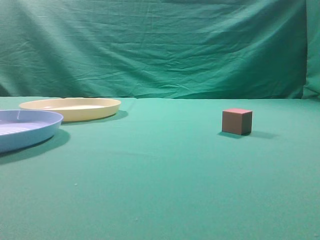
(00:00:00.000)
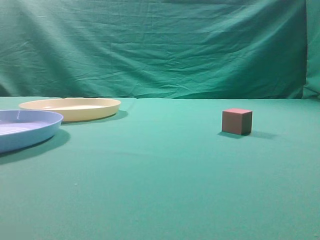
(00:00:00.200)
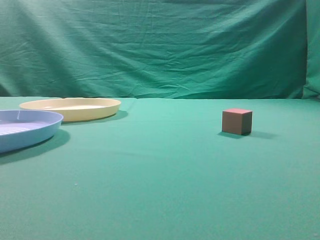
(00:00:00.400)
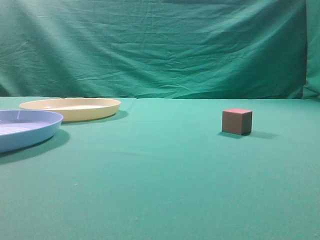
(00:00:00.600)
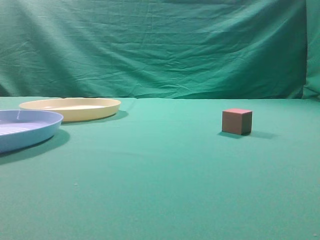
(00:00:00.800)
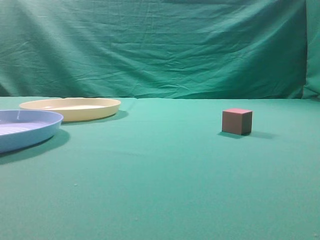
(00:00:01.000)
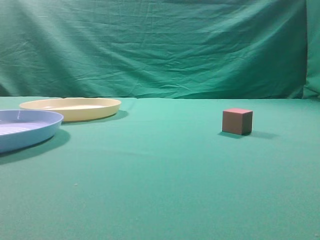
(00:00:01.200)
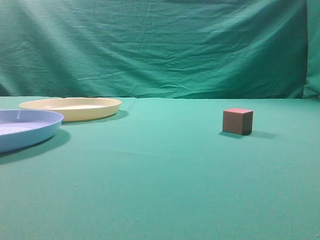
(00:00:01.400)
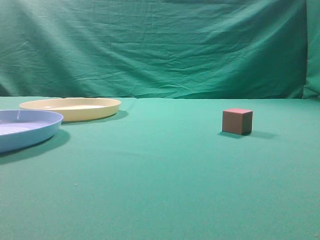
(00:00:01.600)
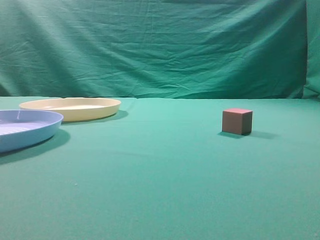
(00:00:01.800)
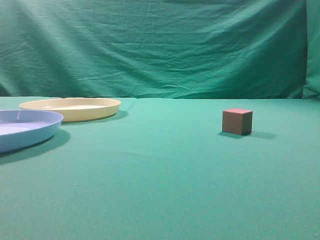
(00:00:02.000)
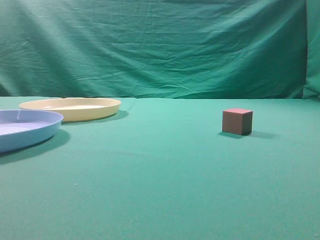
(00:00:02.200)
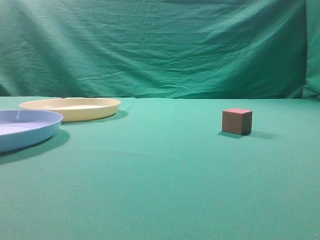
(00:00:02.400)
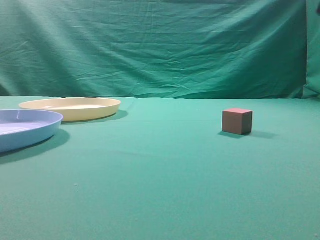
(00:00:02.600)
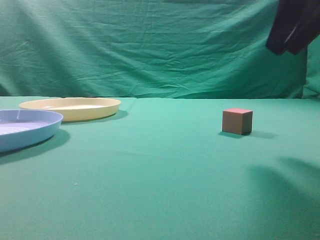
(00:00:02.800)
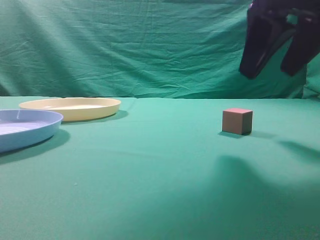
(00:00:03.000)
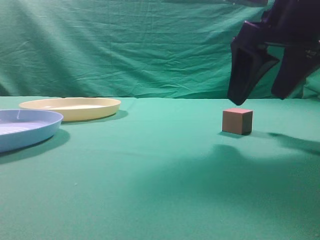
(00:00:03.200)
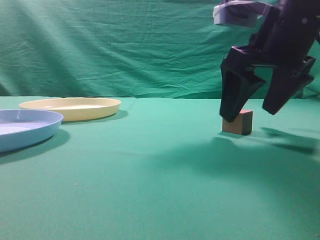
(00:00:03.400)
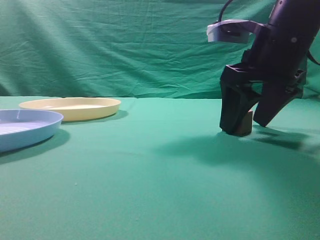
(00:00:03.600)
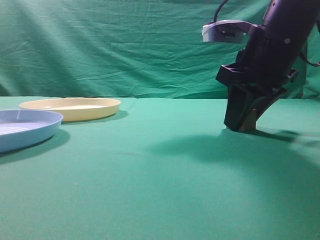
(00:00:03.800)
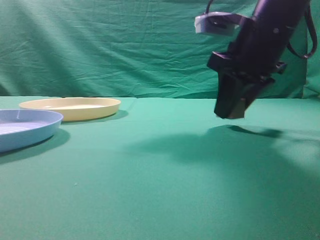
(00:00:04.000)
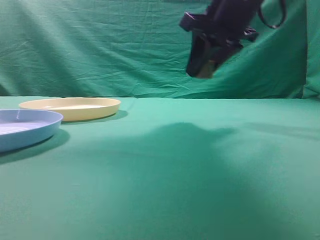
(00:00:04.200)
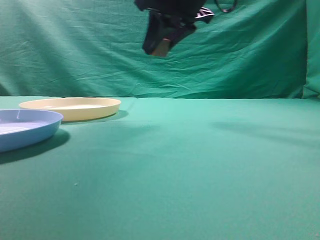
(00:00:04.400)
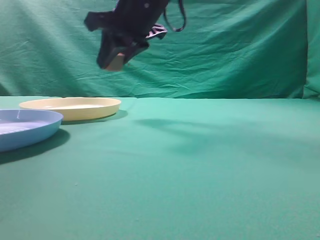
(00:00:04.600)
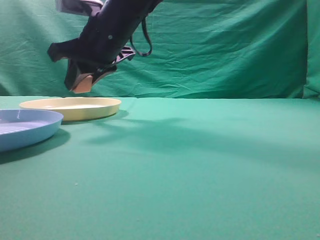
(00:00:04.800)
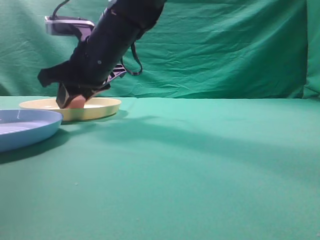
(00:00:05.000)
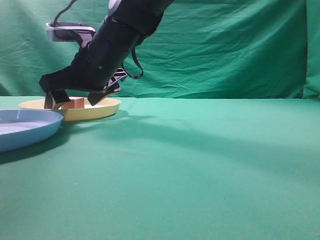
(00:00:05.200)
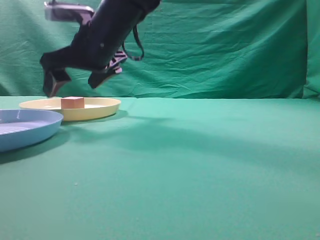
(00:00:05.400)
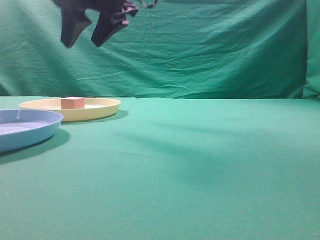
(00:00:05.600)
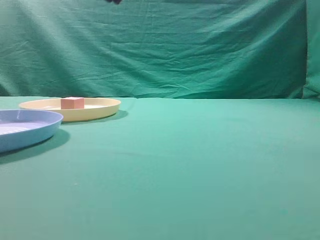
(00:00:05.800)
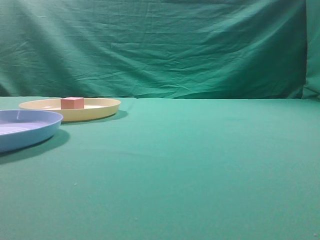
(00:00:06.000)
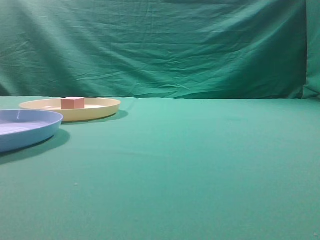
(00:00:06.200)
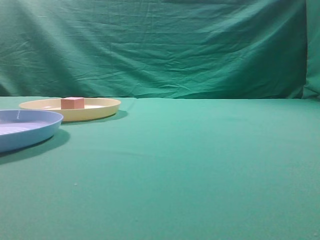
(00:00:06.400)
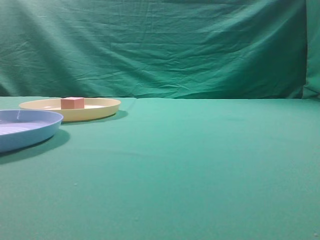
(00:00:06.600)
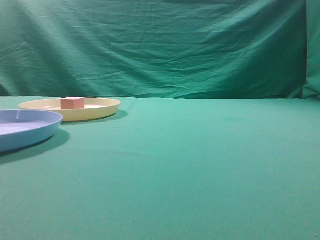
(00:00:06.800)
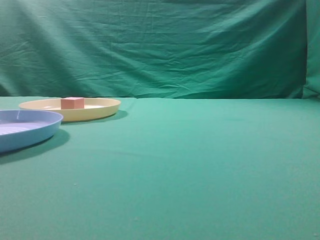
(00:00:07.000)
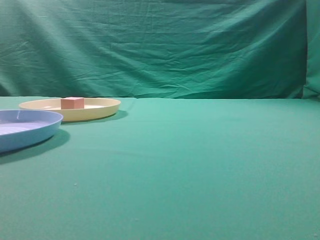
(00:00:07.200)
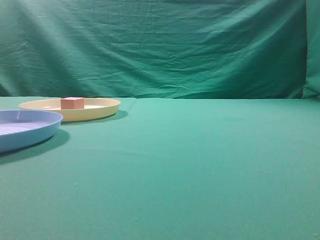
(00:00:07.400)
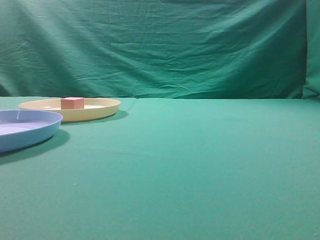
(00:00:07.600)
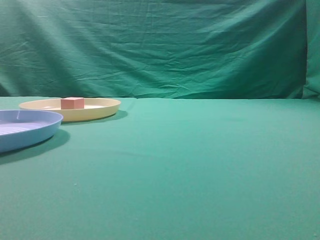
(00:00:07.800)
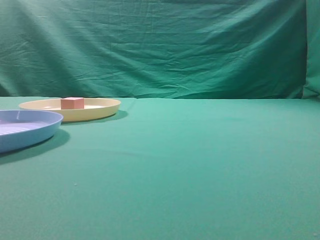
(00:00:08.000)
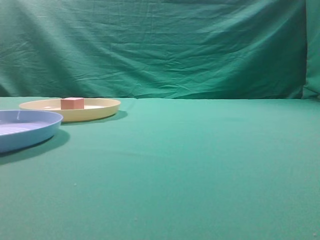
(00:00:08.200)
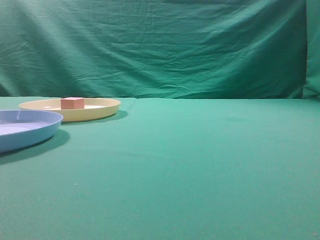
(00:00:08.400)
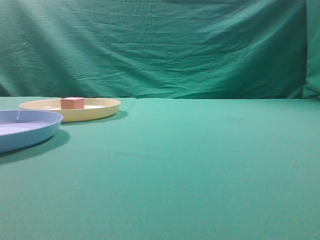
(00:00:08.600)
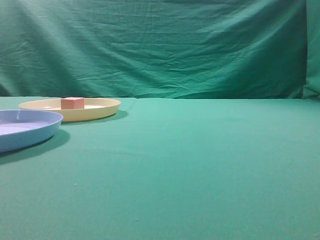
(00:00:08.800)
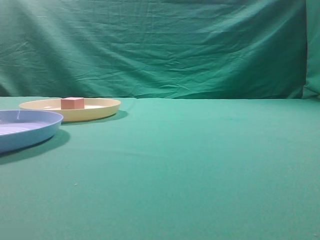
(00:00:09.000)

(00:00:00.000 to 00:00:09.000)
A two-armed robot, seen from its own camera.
Task of the whole recording: pick up the cube block from the table and put it on the plate.
Step, 00:00:00.000 - 00:00:04.000: Grasp the small cube on the table.
Step, 00:00:04.200 - 00:00:05.400: Place it into the yellow plate.
00:00:01.600 - 00:00:03.000: The right gripper moves forward and to the left, some 25 cm, and opens.
00:00:03.000 - 00:00:04.400: The right gripper shifts roughly 20 cm to the left and forward, and closes.
00:00:04.400 - 00:00:06.000: The right gripper goes about 15 cm upward and backward, and closes its fingers.
